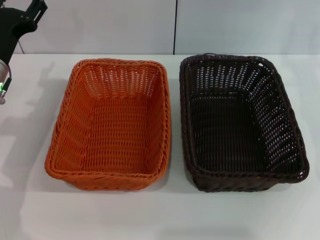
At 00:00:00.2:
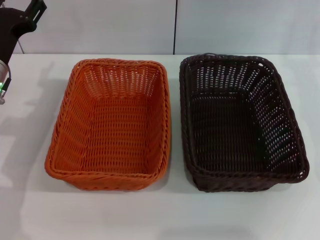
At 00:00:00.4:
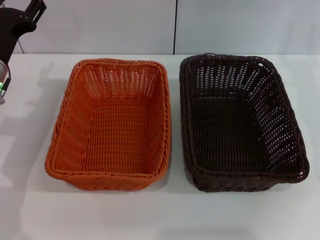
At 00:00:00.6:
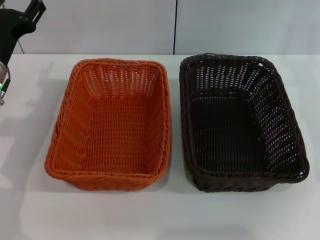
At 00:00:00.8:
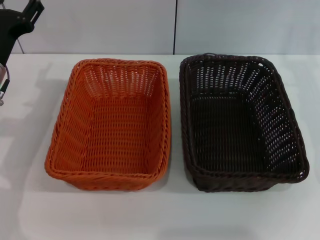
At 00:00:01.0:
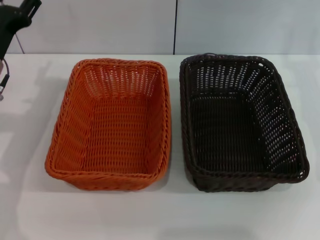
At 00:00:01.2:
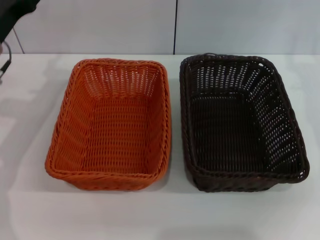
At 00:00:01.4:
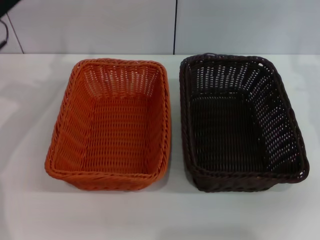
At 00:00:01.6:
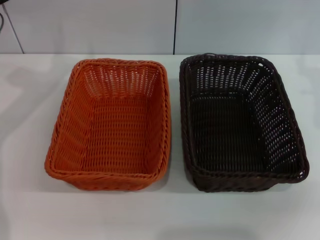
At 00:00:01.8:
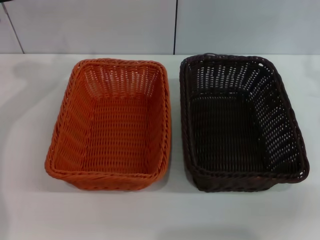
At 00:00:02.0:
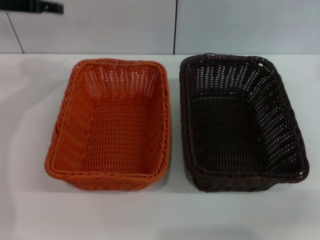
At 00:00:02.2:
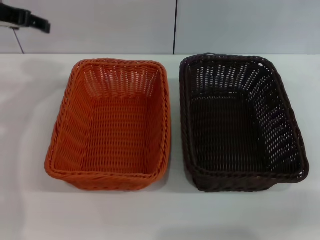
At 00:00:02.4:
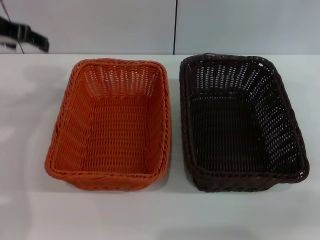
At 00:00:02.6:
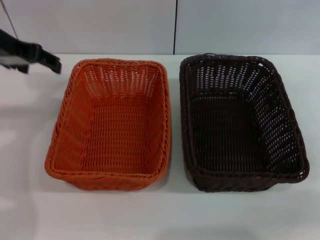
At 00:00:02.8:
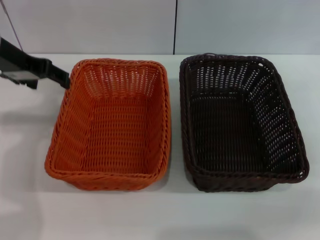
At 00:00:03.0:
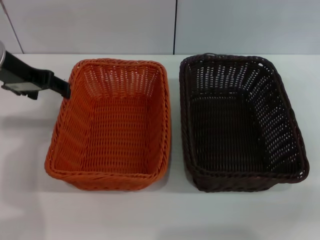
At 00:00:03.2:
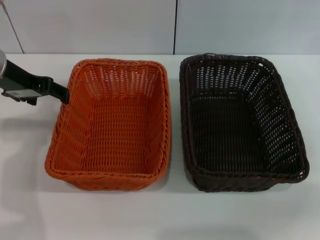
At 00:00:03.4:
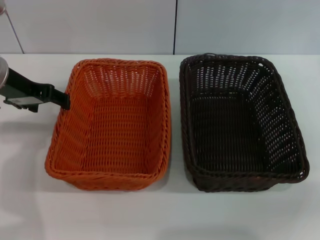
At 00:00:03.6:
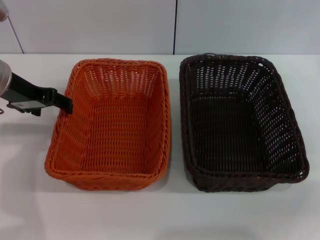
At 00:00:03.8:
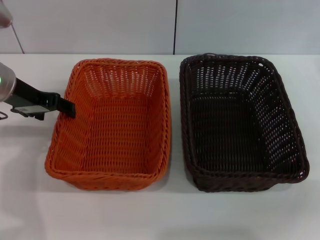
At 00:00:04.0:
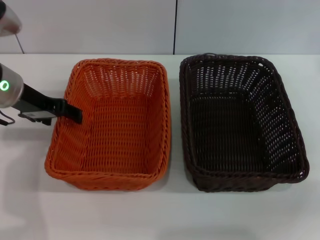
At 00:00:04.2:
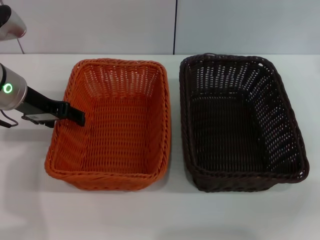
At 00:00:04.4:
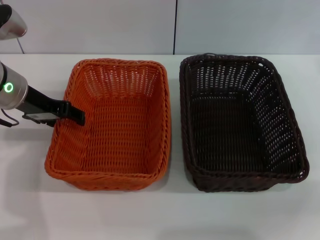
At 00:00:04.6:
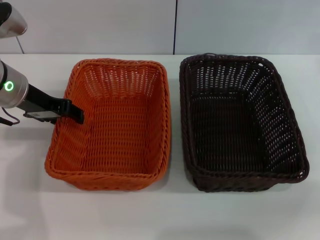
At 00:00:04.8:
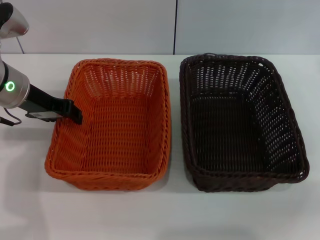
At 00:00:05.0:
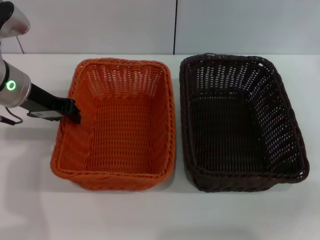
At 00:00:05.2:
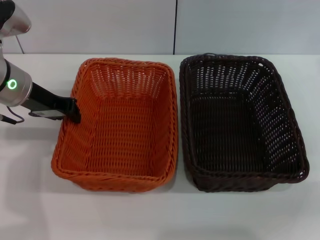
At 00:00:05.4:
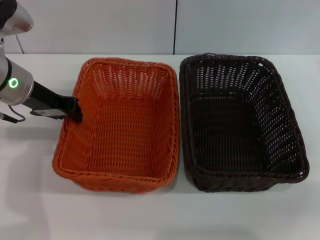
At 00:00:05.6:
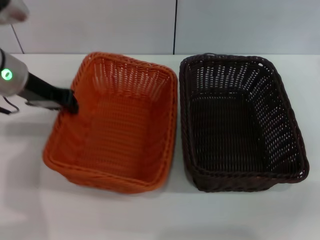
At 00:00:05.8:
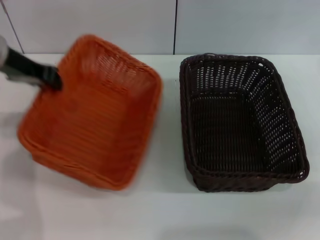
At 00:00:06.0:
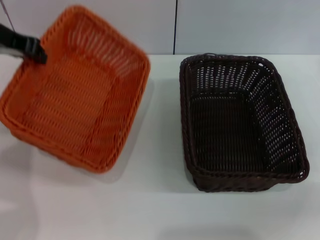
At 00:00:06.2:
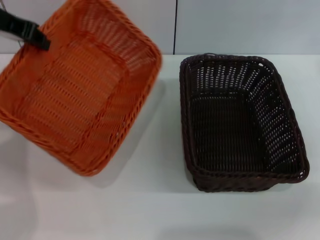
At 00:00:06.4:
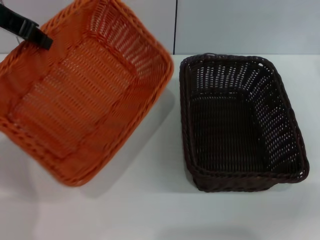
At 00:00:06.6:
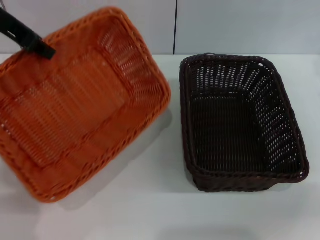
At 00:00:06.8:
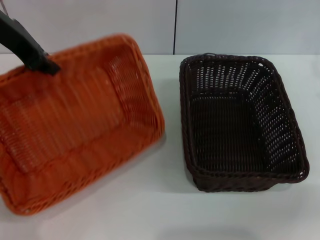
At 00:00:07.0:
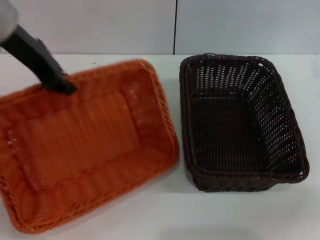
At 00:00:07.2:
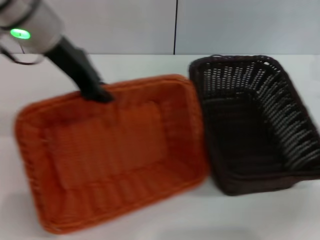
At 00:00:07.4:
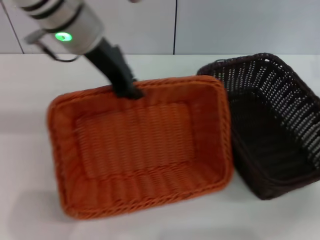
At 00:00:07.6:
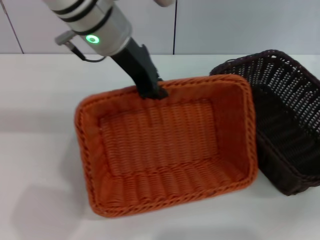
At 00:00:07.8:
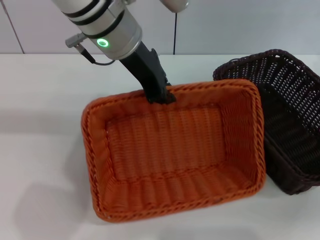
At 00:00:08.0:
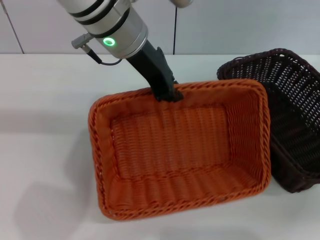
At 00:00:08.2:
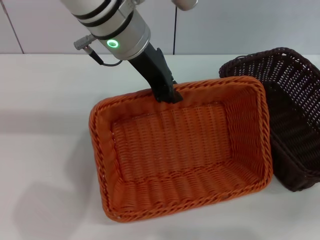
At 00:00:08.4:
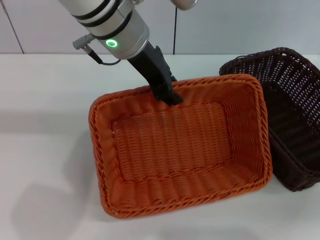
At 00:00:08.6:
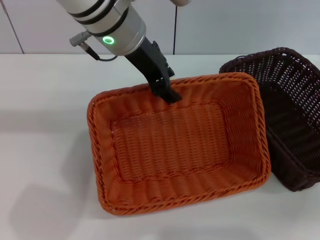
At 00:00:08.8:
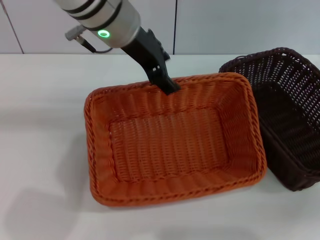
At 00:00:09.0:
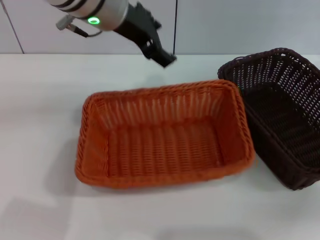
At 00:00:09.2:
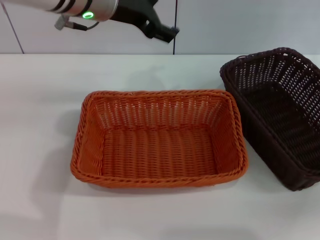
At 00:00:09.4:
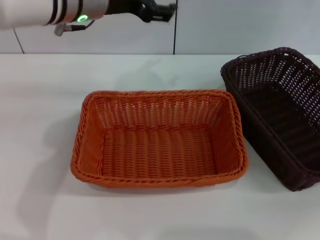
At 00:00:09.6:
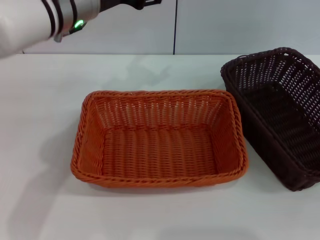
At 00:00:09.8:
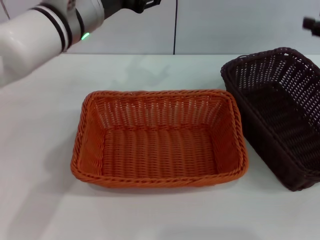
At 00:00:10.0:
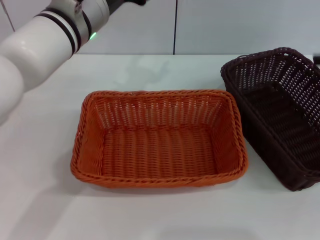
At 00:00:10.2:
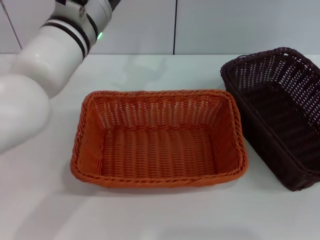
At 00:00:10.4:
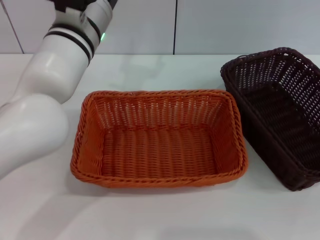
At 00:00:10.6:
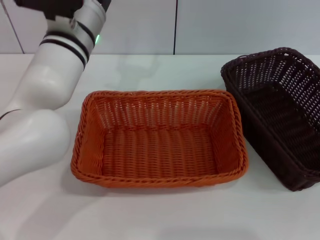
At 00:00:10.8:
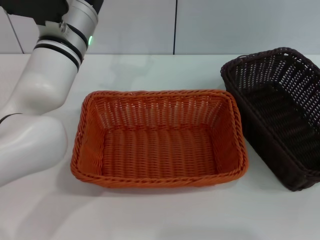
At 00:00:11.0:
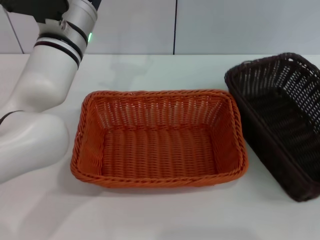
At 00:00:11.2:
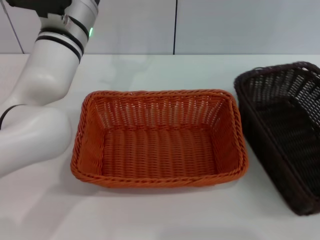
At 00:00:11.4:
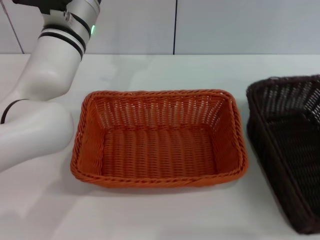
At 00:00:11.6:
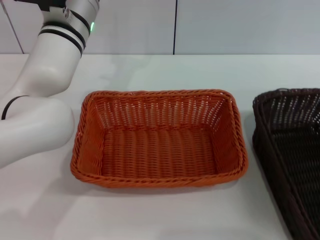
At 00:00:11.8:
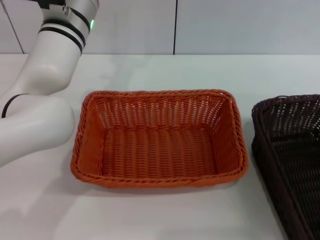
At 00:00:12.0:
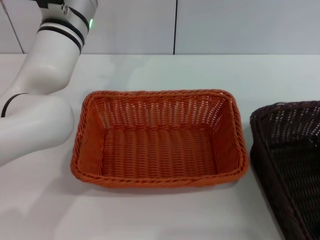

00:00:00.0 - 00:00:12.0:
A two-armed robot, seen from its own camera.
Step, 00:00:00.0 - 00:00:05.4: Pick up the light basket with the left gripper.
Step, 00:00:05.6 - 00:00:09.0: Place the light basket in the center of view with the left gripper.
00:00:00.0 - 00:00:01.6: The left gripper shifts approximately 10 cm upward and forward.
00:00:01.6 - 00:00:03.0: The left gripper goes about 5 cm backward.
00:00:03.0 - 00:00:04.4: The left gripper moves downward, approximately 5 cm.
00:00:04.4 - 00:00:06.0: The left gripper heads upward, covering about 10 cm, and closes up.
00:00:06.0 - 00:00:07.6: The left gripper shifts some 15 cm to the right.
00:00:07.6 - 00:00:09.0: The left gripper opens its fingers.
00:00:09.0 - 00:00:10.4: The right gripper goes approximately 10 cm upward and to the right; the left gripper moves downward, approximately 5 cm.
00:00:10.4 - 00:00:12.0: The right gripper moves to the left and backward, about 10 cm.

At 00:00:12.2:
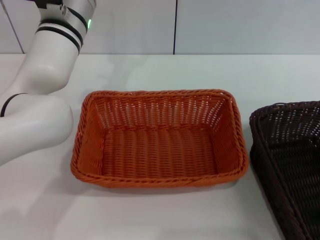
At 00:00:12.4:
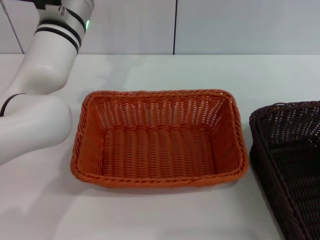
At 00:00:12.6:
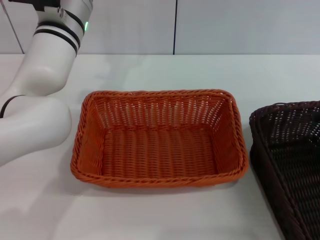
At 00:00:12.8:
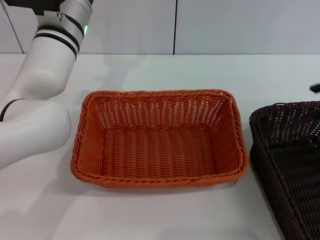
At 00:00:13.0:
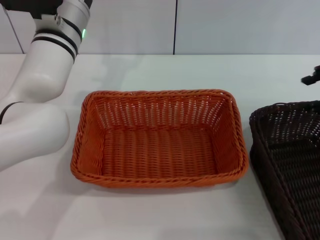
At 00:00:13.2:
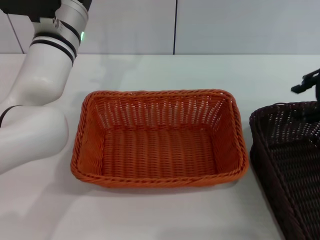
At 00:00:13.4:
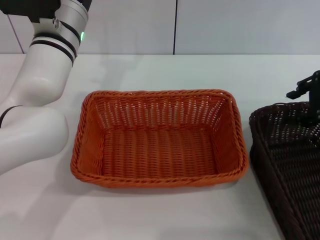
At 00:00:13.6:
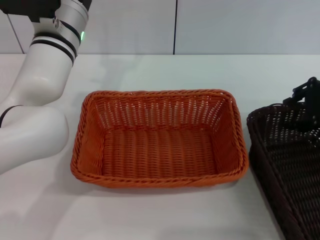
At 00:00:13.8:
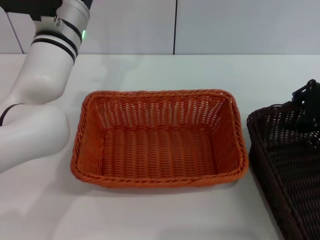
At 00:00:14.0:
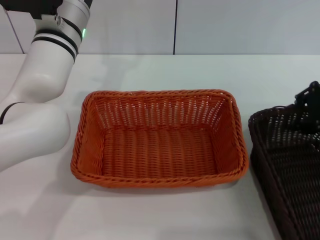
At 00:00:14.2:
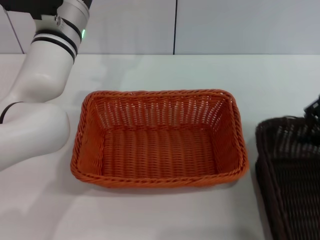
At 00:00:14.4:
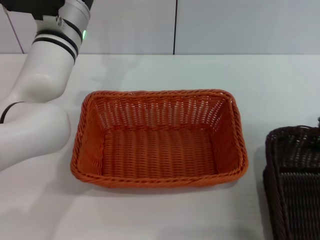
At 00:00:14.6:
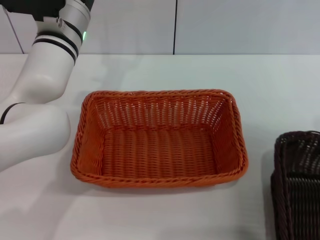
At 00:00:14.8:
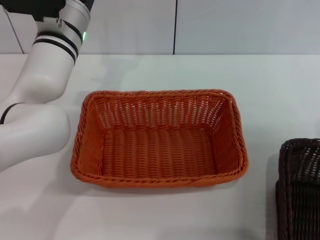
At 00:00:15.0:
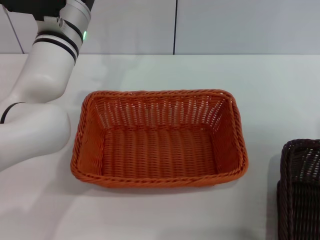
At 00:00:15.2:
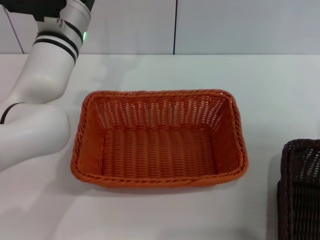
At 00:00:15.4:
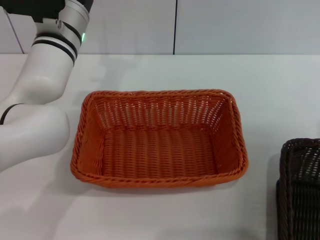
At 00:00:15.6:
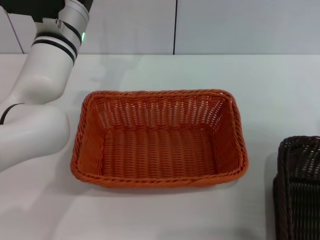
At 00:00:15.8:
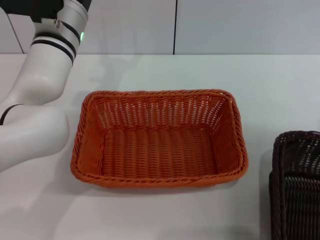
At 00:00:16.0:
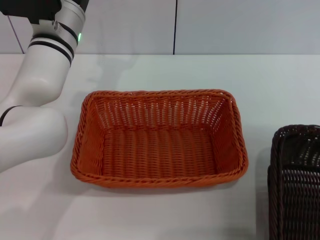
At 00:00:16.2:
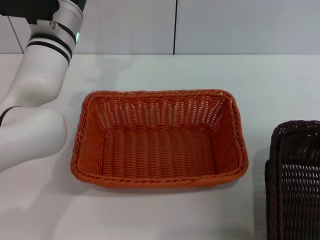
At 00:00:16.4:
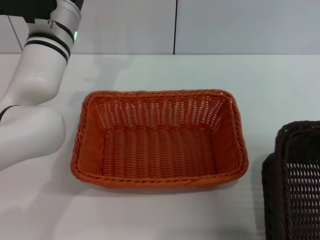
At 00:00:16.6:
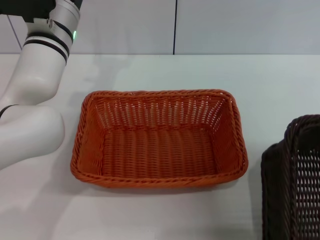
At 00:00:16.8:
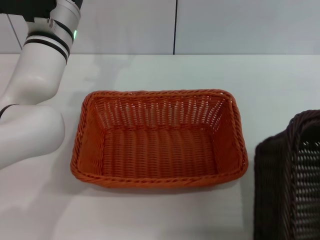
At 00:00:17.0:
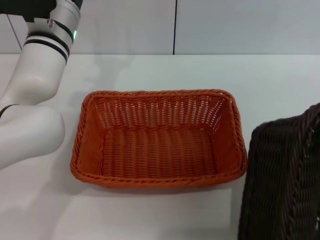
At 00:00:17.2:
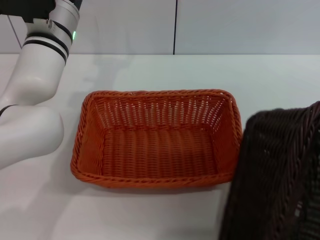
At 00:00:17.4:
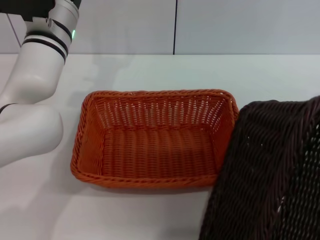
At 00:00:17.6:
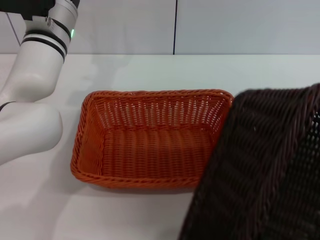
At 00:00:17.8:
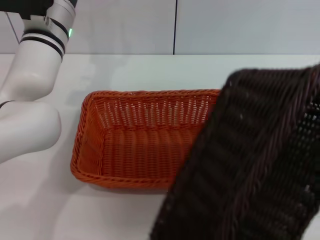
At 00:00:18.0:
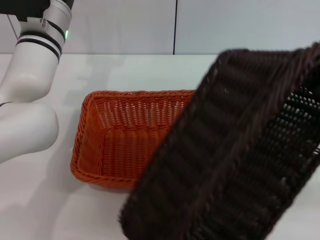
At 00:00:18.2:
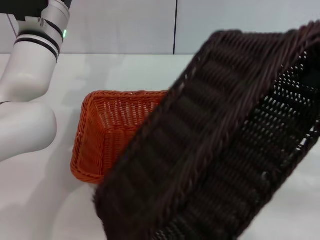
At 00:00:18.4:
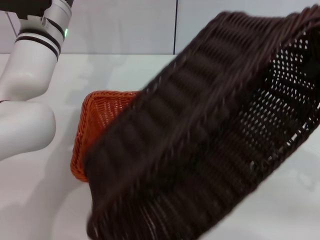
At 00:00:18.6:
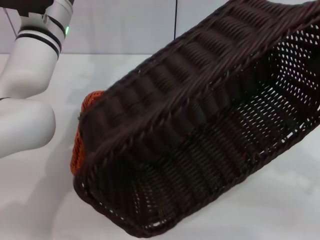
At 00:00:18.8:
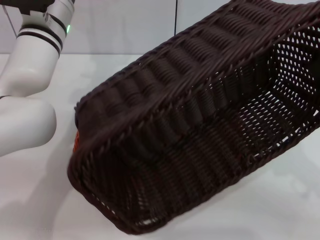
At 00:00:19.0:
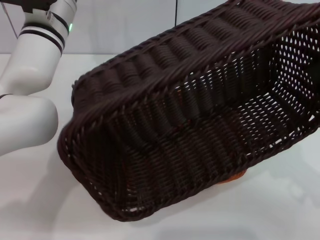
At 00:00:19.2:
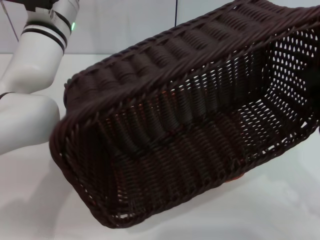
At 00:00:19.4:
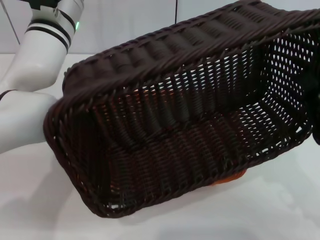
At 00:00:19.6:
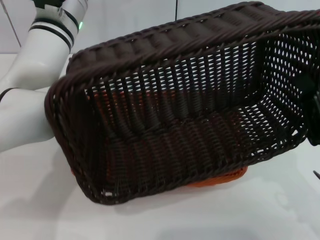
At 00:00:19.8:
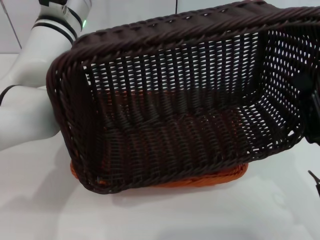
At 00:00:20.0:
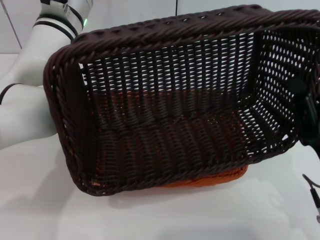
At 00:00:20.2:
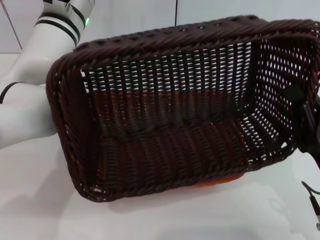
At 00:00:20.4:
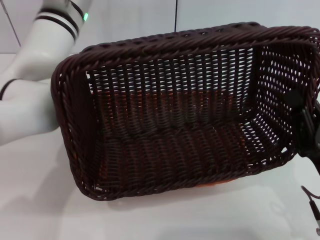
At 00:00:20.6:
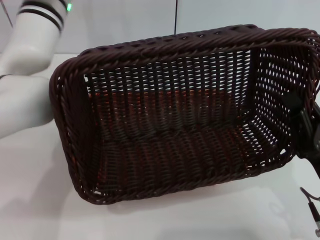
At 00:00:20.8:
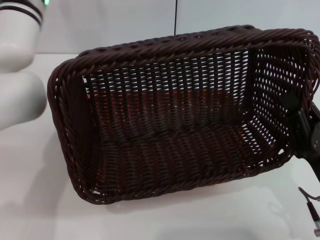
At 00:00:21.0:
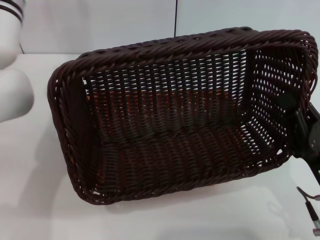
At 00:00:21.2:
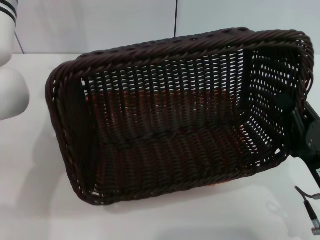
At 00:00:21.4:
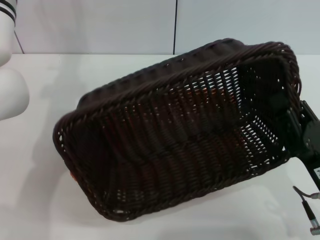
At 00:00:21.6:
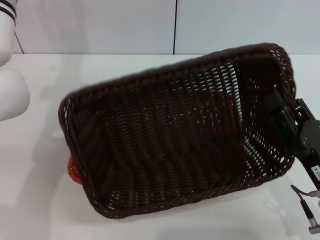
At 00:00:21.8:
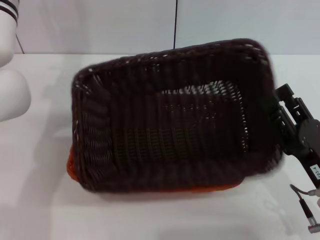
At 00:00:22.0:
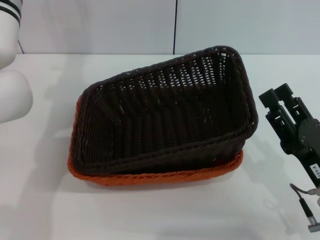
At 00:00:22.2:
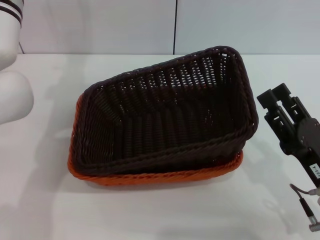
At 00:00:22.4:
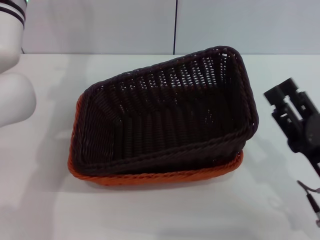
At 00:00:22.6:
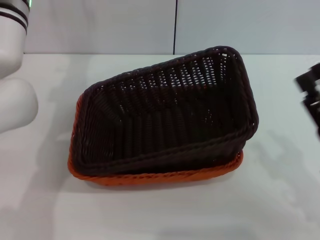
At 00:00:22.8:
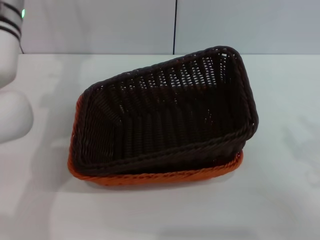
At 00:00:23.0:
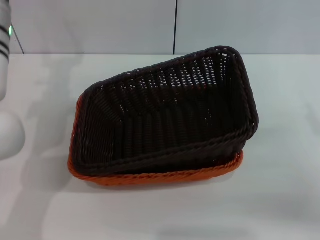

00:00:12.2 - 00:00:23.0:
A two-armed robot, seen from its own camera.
Step, 00:00:12.2 - 00:00:15.4: Pick up the dark basket with the right gripper.
Step, 00:00:15.8 - 00:00:21.8: Place the dark basket on the light basket with the right gripper.
00:00:12.2 - 00:00:13.8: The right gripper travels forward by roughly 10 cm.
00:00:13.8 - 00:00:15.2: The right gripper heads to the right, covering about 5 cm, and closes up.
00:00:15.2 - 00:00:16.8: The right gripper moves backward and upward, some 10 cm.
00:00:16.8 - 00:00:18.4: The right gripper moves downward and to the left, approximately 10 cm.
00:00:18.4 - 00:00:20.0: The right gripper heads to the left, downward and backward, covering about 10 cm.
00:00:20.0 - 00:00:21.4: The left gripper travels to the left by roughly 10 cm.
00:00:21.4 - 00:00:23.0: The right gripper shifts about 15 cm to the right and forward, and opens up.
